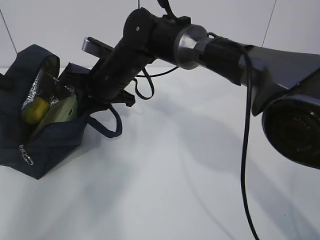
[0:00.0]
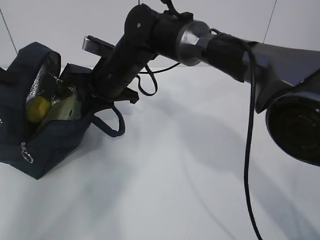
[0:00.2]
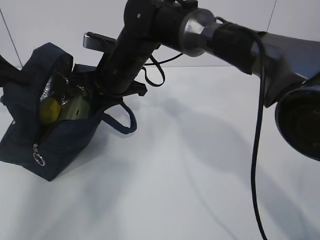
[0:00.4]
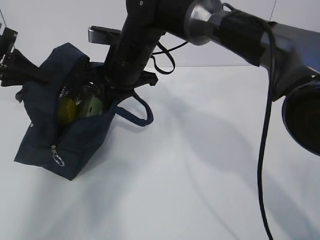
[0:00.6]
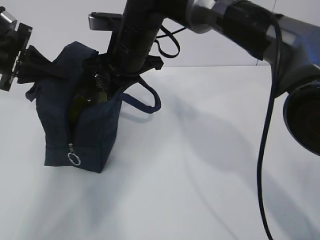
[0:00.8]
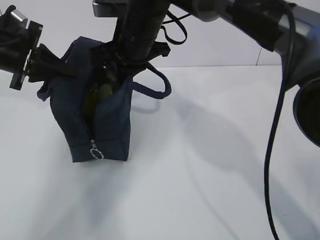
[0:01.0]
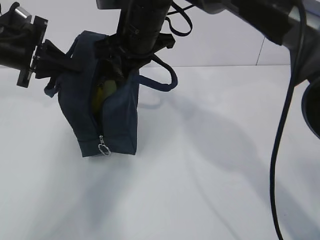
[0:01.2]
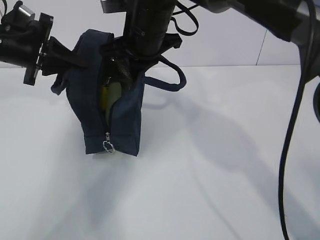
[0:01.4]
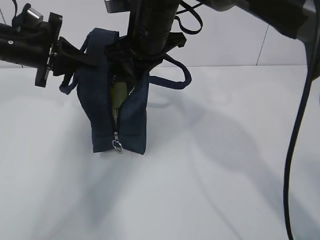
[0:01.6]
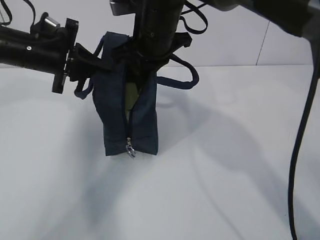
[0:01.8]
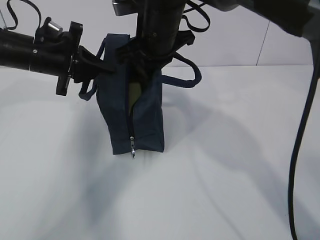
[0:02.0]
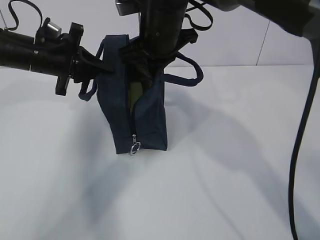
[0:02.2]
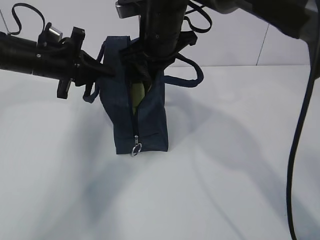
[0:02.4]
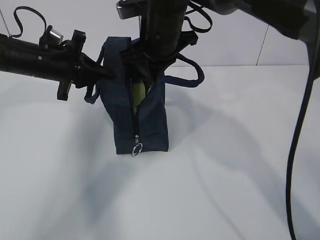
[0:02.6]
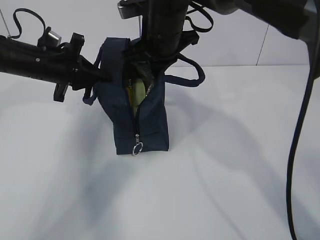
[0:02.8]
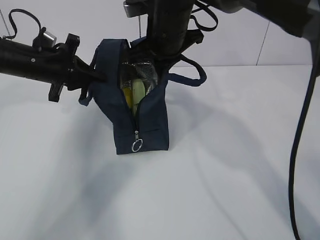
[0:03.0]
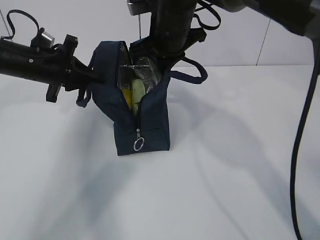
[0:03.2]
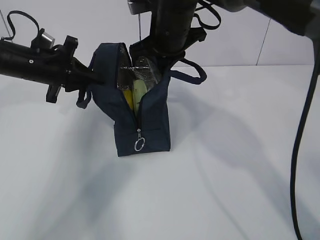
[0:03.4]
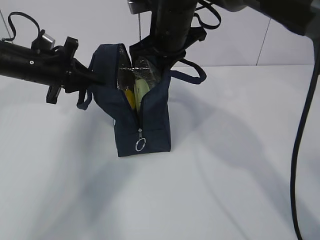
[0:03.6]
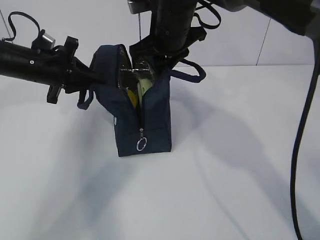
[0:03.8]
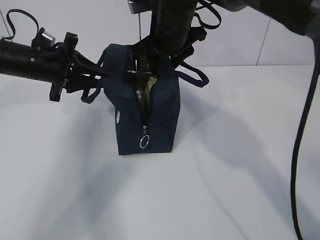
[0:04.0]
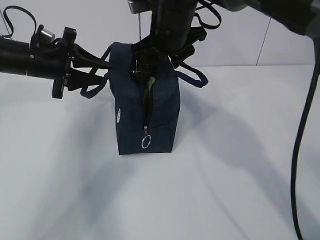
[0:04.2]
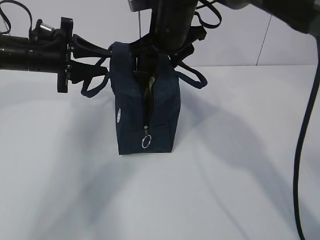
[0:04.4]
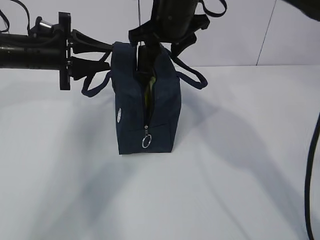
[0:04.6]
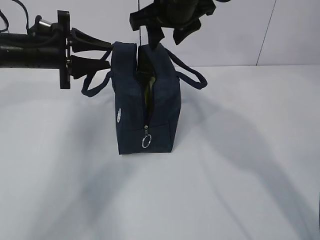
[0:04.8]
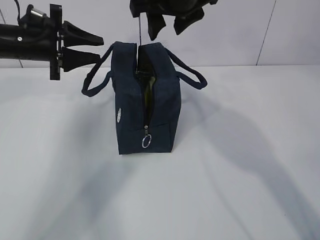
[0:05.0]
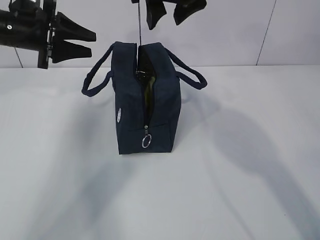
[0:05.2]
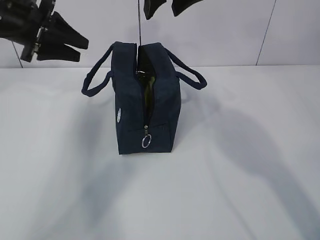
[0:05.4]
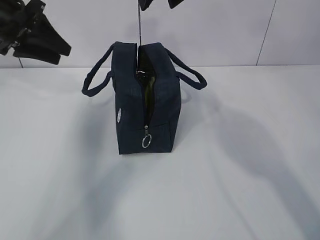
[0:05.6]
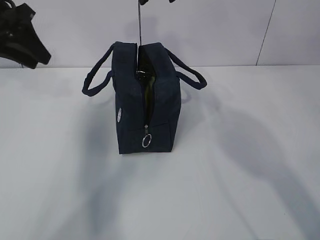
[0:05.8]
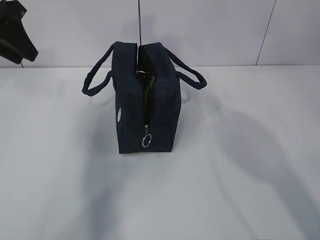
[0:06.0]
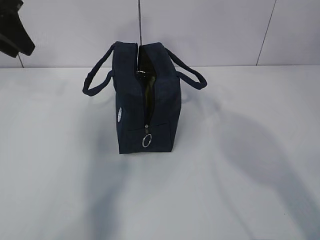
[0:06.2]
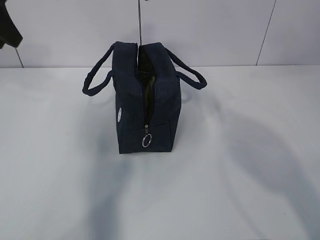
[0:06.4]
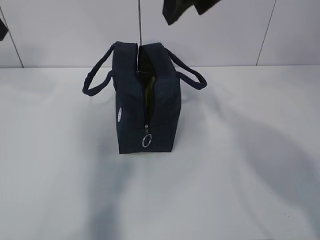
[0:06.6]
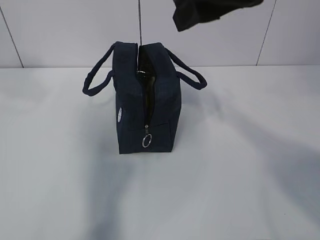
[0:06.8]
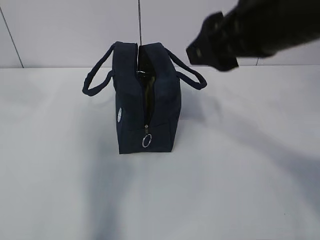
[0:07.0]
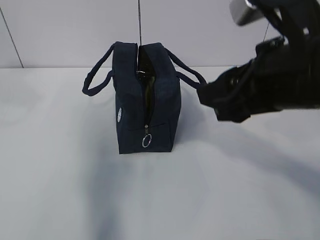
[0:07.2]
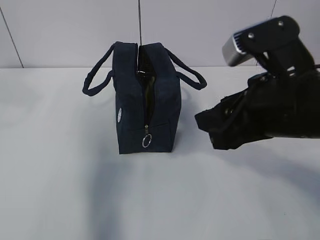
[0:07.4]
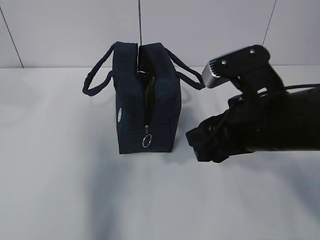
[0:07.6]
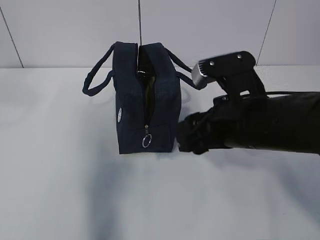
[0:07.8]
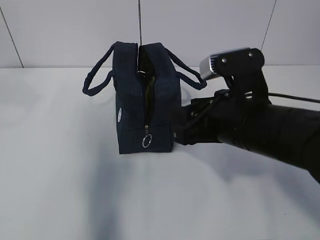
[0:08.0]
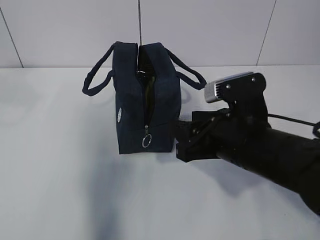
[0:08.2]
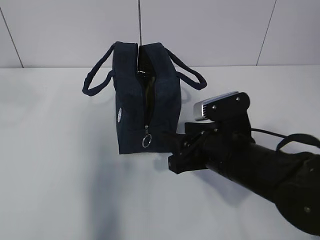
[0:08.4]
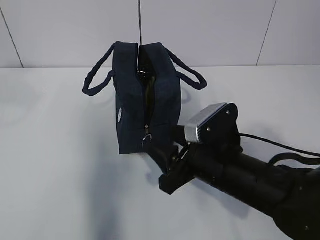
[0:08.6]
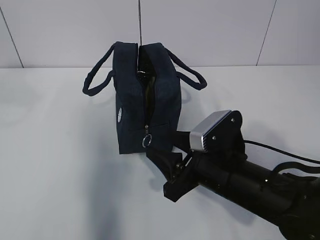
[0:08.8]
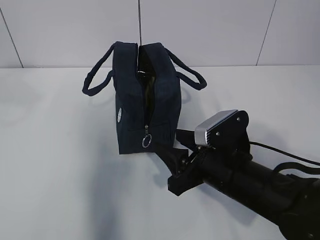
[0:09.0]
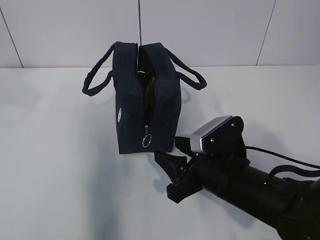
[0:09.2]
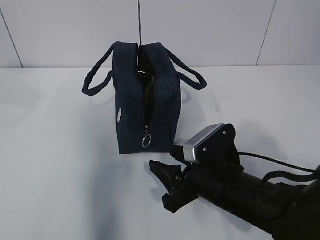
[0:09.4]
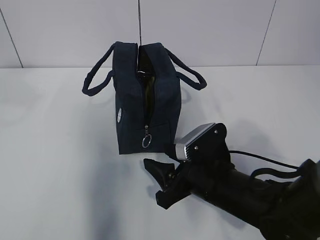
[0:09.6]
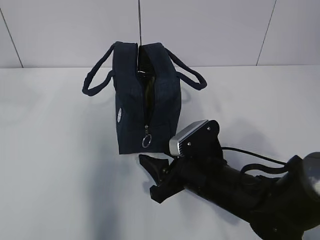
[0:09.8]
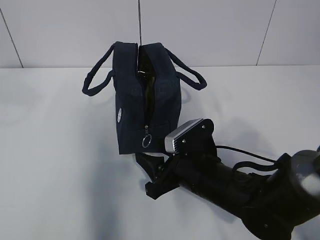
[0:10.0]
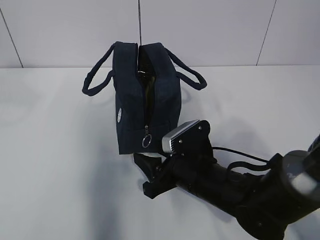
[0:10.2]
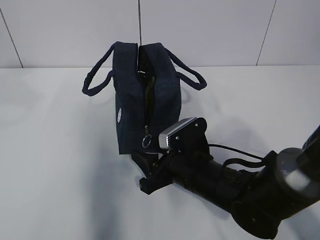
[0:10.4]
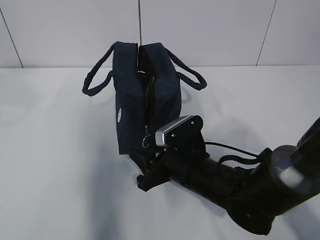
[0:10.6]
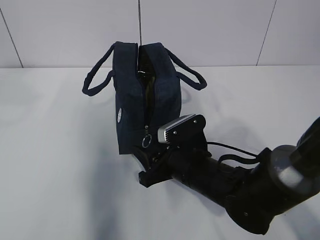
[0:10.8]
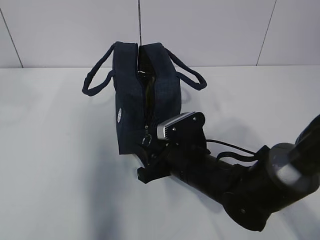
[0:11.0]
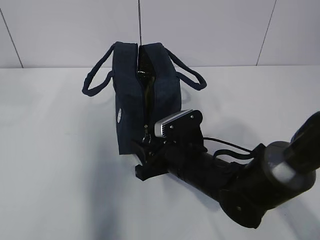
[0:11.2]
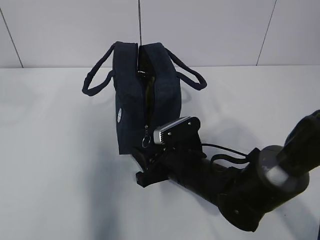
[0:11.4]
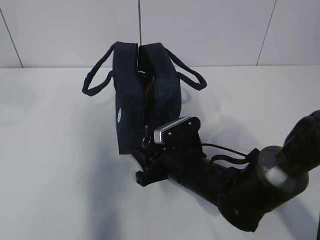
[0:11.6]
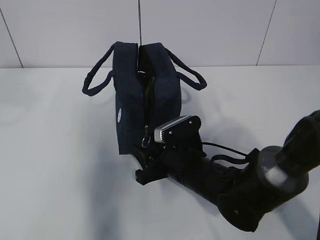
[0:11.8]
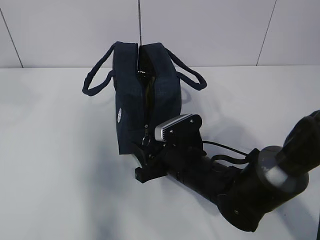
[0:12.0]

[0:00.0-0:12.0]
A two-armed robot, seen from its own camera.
0:00.0 to 0:01.6: The left gripper is displaced to the right by about 15 cm, while the right gripper travels upward and to the right by roughly 10 cm.
0:01.6 to 0:03.0: There are only small adjustments of the grippers.
0:03.0 to 0:04.4: The right gripper opens. The left gripper opens.
0:04.4 to 0:06.0: The right gripper heads upward and backward, covering approximately 15 cm. Meanwhile the left gripper is displaced upward by roughly 10 cm.
0:06.0 to 0:07.6: The right gripper goes approximately 20 cm downward and backward; the left gripper is displaced backward and upward by approximately 15 cm.
0:07.6 to 0:09.0: The right gripper is displaced downward by about 10 cm.
0:09.0 to 0:10.4: The right gripper shifts by roughly 5 cm.
0:10.4 to 0:12.0: The grippers stay close to where they were, moving slightly.

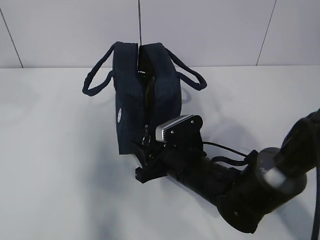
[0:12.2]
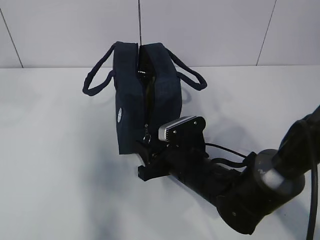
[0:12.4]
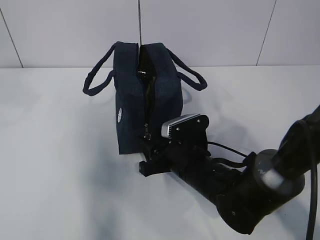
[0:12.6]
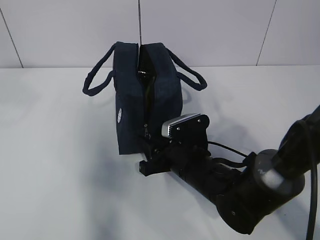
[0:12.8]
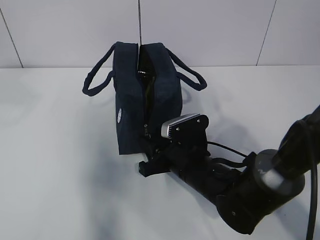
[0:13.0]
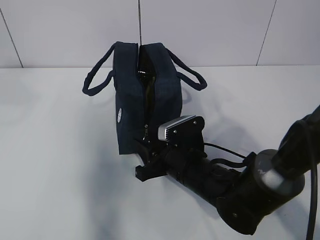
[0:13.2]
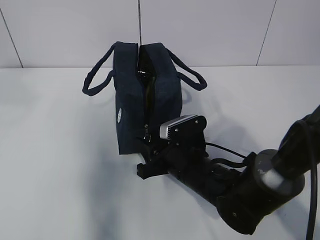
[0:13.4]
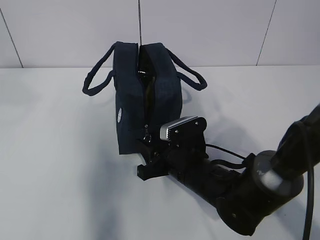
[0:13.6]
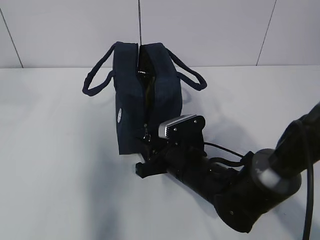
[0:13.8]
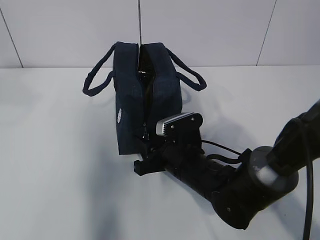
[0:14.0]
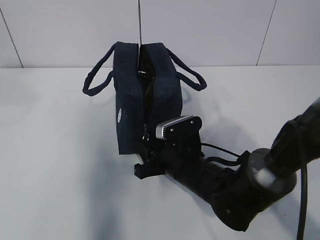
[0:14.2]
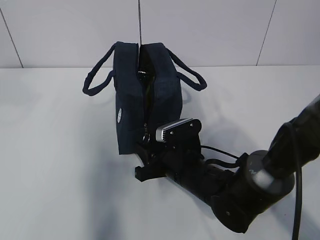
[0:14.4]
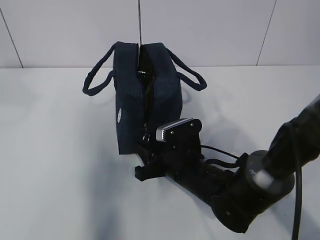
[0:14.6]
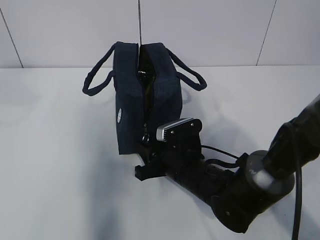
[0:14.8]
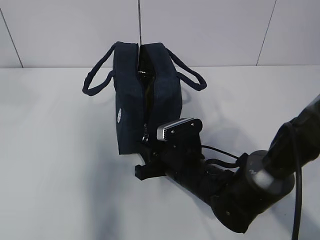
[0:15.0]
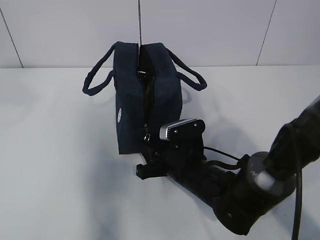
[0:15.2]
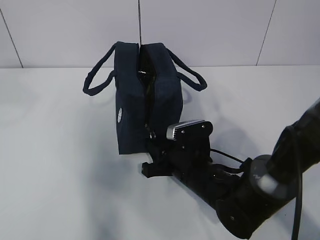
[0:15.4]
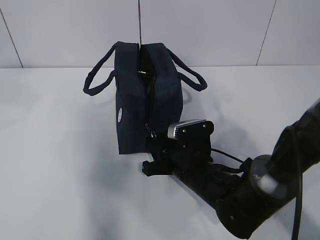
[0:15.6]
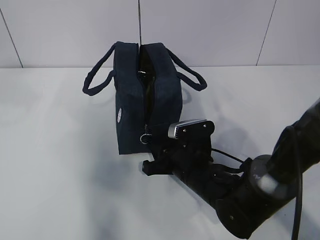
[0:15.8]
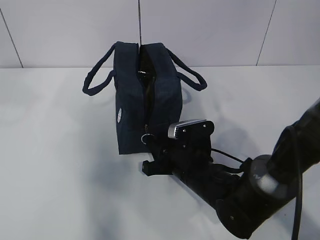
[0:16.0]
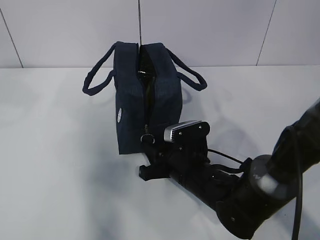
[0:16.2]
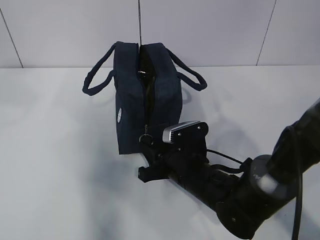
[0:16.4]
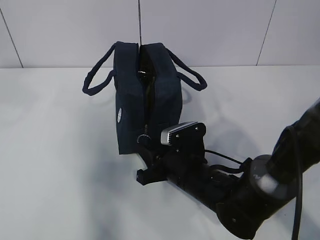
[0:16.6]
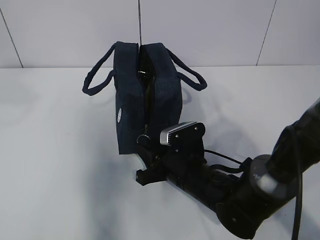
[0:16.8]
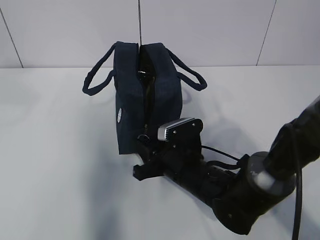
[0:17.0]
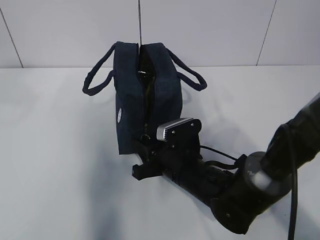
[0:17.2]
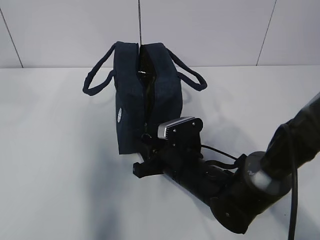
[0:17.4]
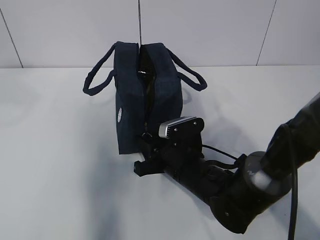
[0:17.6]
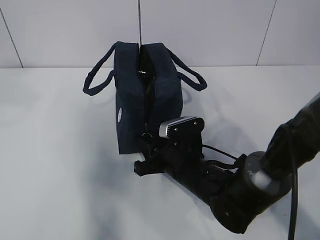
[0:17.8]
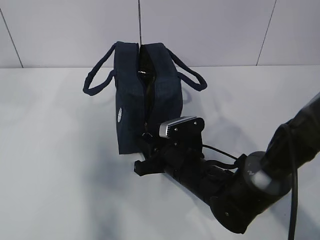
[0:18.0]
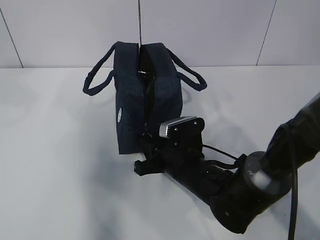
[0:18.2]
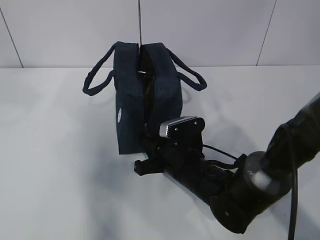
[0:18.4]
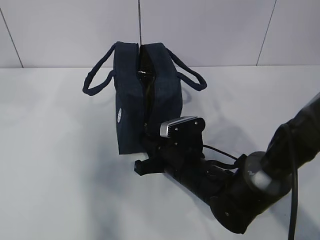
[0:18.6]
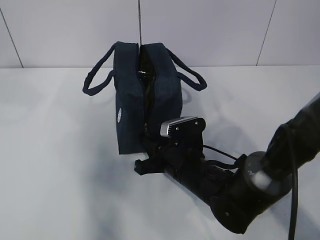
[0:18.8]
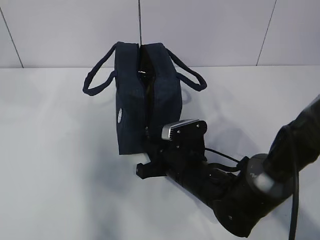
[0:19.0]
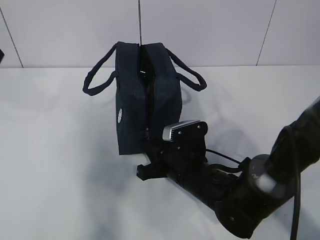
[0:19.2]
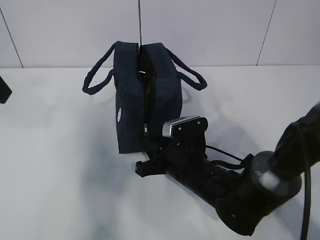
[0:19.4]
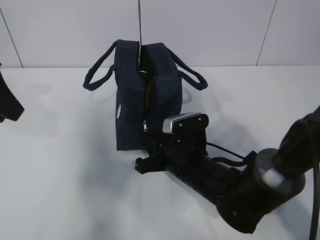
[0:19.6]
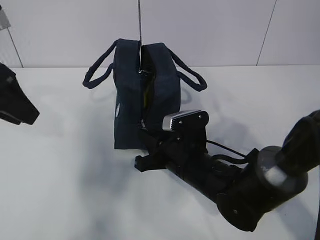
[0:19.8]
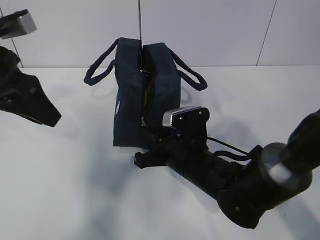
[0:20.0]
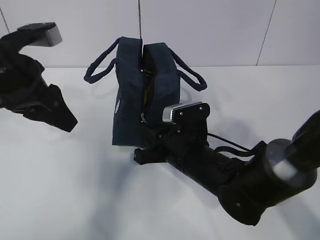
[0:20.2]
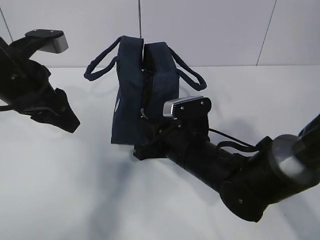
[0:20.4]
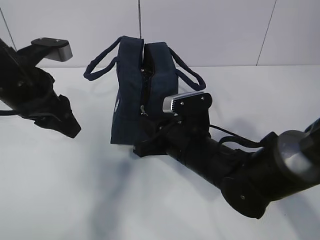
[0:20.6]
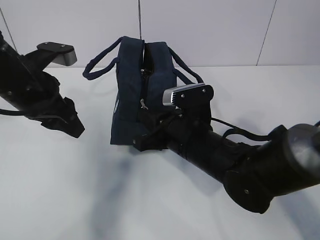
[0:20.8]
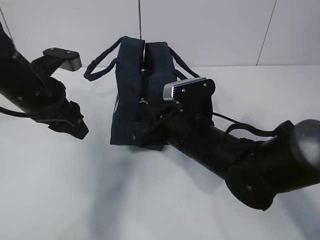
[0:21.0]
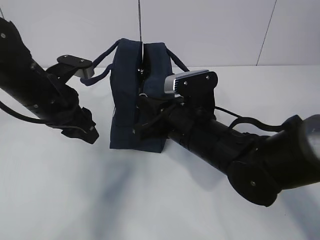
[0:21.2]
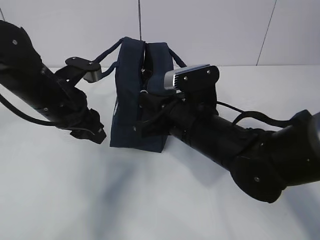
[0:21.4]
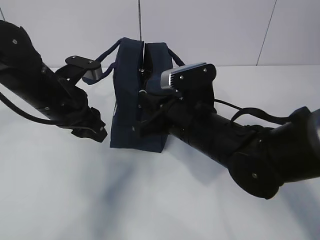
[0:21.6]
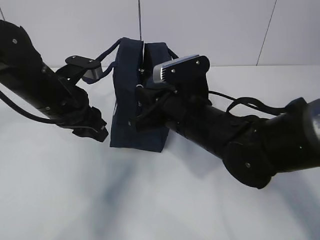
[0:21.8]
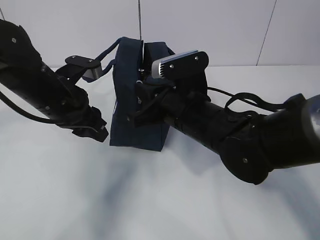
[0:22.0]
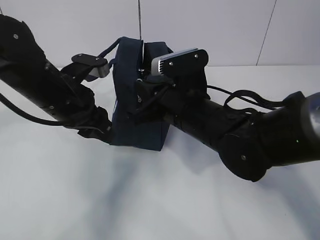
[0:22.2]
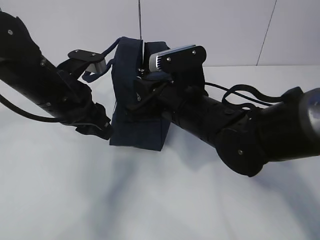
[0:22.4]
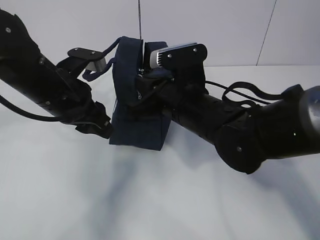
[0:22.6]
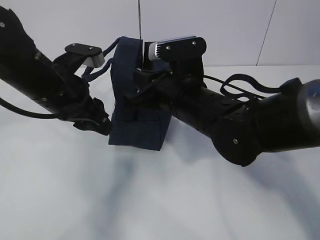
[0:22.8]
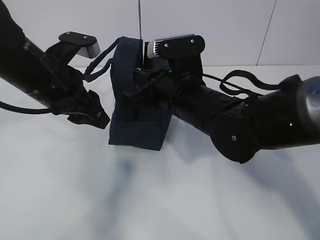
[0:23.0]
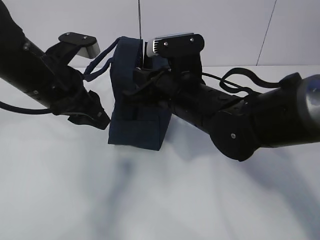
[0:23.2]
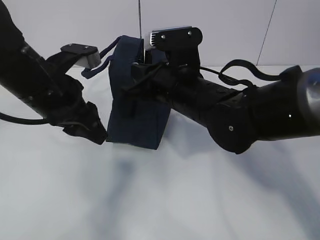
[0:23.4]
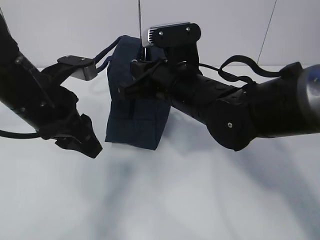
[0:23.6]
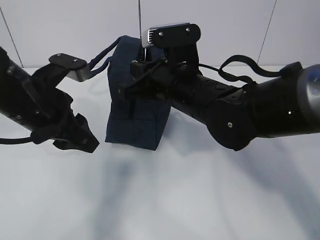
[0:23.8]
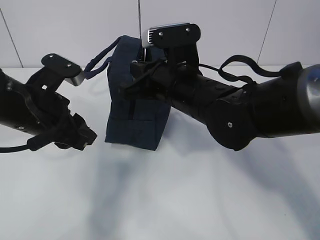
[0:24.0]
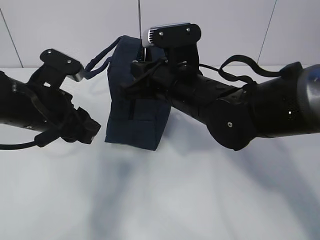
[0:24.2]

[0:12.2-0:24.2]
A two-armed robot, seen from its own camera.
0:12.2 to 0:13.8: The grippers move only a little.
0:13.8 to 0:15.2: The two grippers keep their place.
0:15.2 to 0:16.6: The grippers move only a little.
0:16.6 to 0:18.2: Neither gripper changes place.
0:18.2 to 0:19.8: The left gripper is displaced downward by approximately 10 cm. Meanwhile the right gripper closes up.
0:19.8 to 0:21.2: The right gripper shifts some 10 cm upward, while the left gripper travels downward, to the right and forward by roughly 15 cm.
